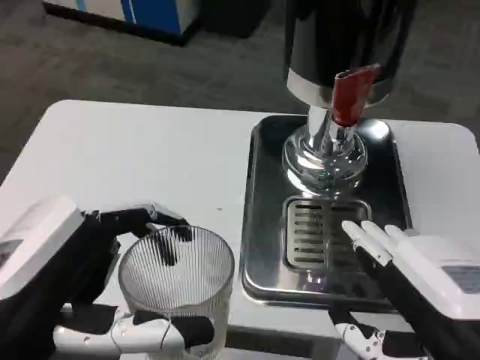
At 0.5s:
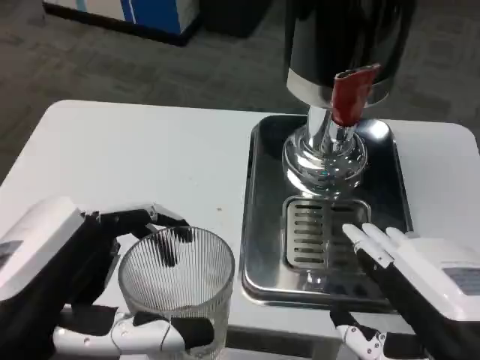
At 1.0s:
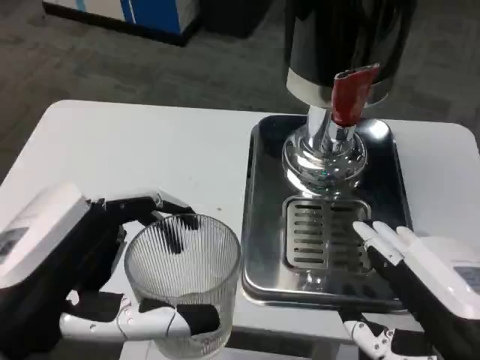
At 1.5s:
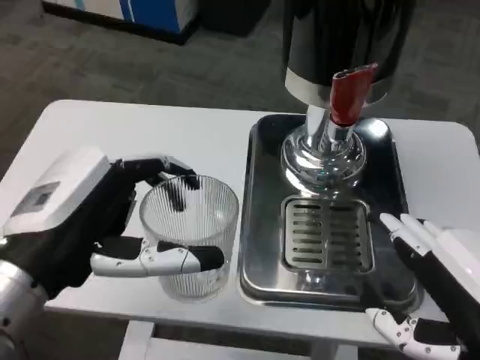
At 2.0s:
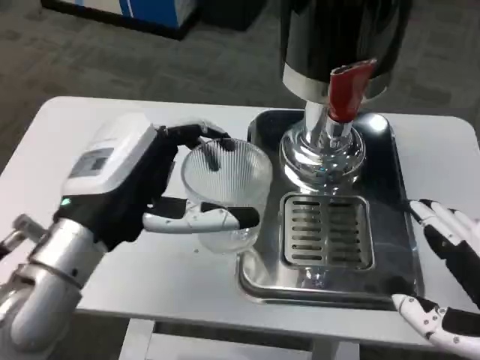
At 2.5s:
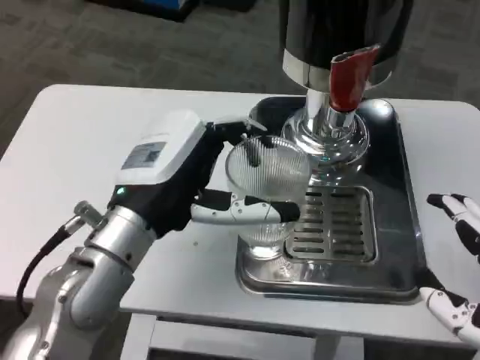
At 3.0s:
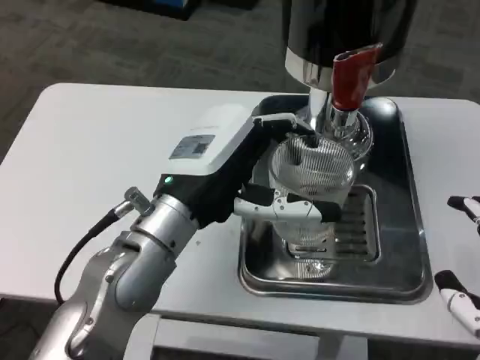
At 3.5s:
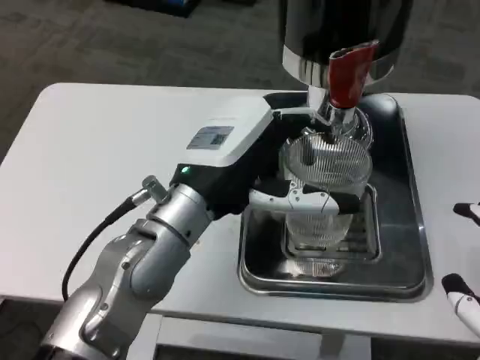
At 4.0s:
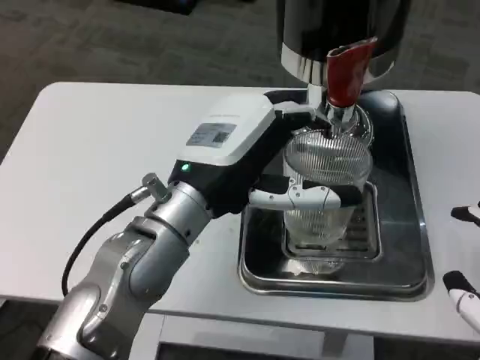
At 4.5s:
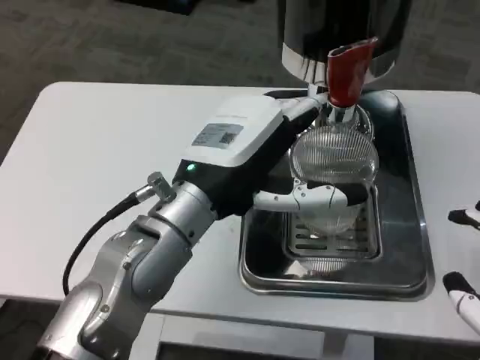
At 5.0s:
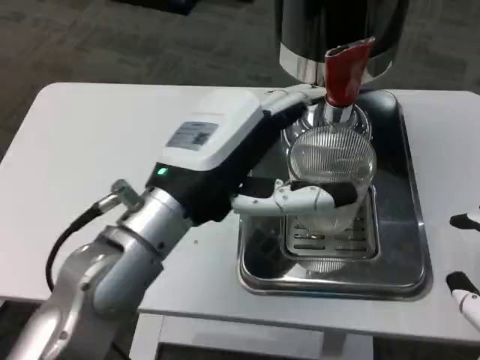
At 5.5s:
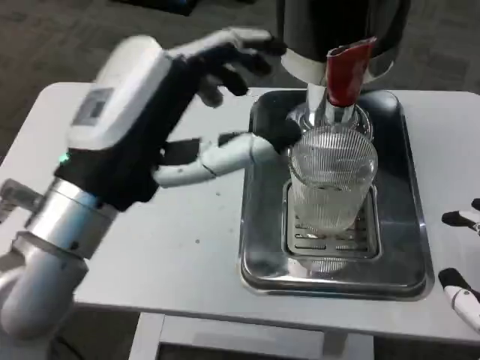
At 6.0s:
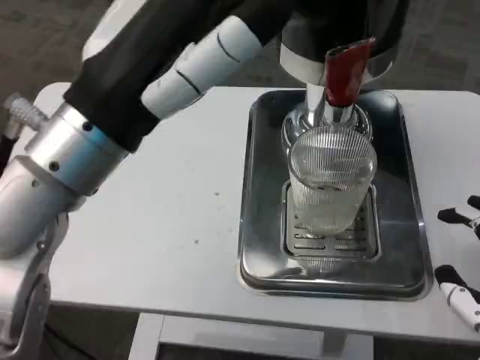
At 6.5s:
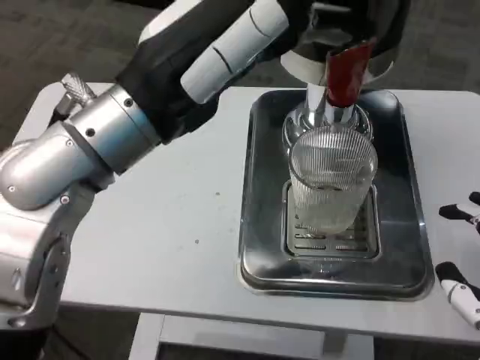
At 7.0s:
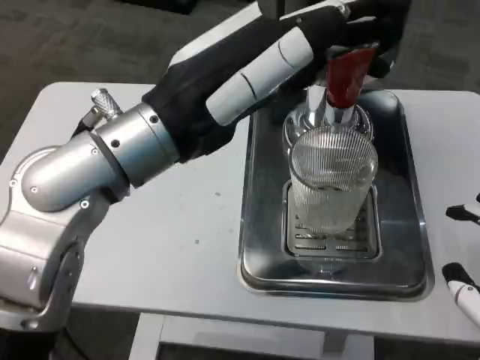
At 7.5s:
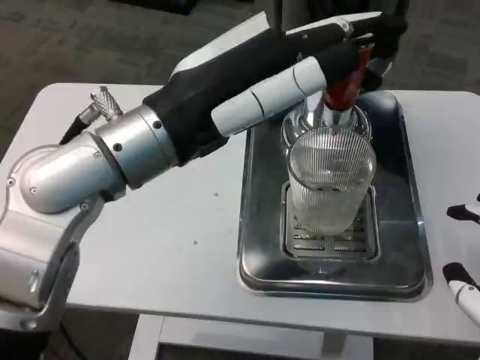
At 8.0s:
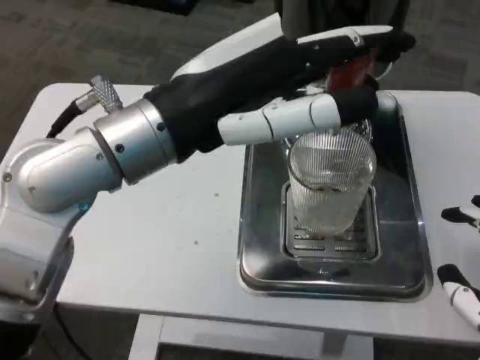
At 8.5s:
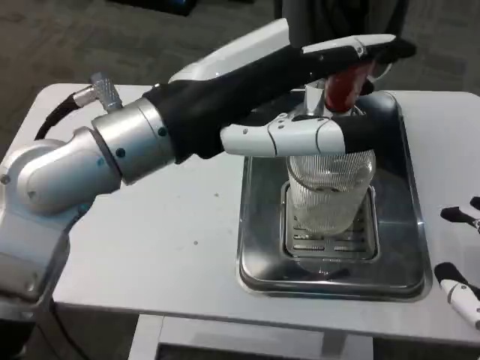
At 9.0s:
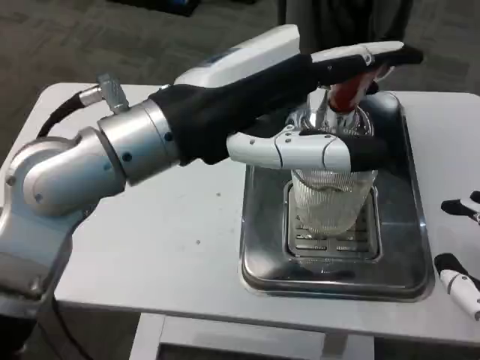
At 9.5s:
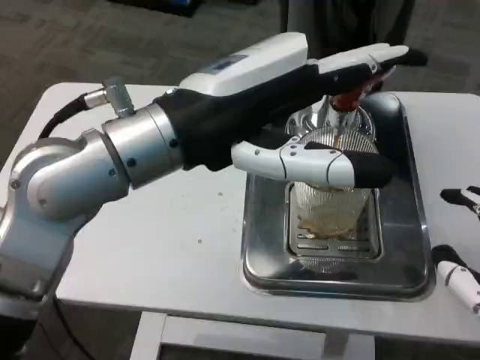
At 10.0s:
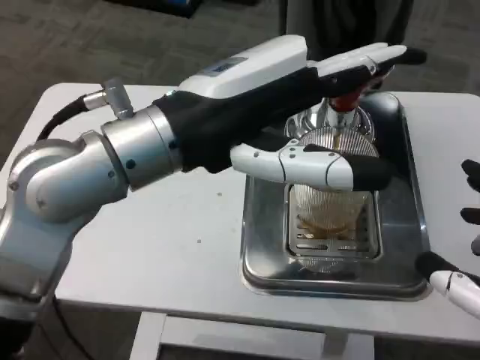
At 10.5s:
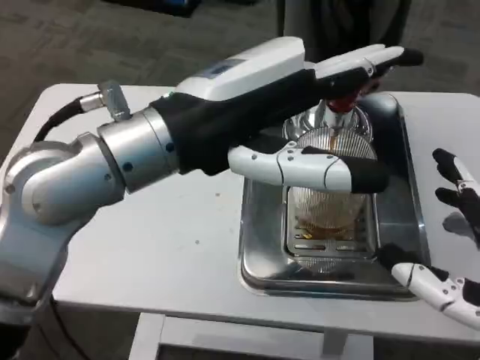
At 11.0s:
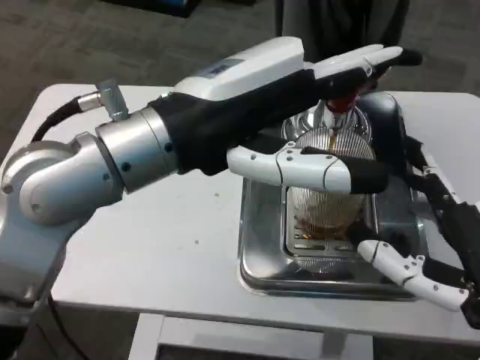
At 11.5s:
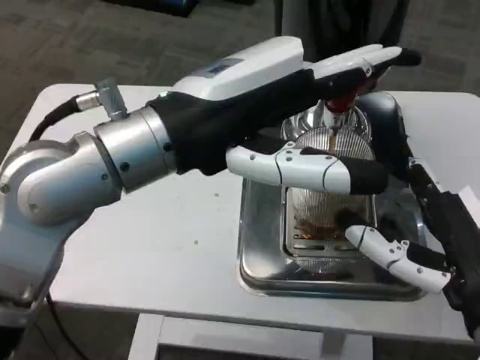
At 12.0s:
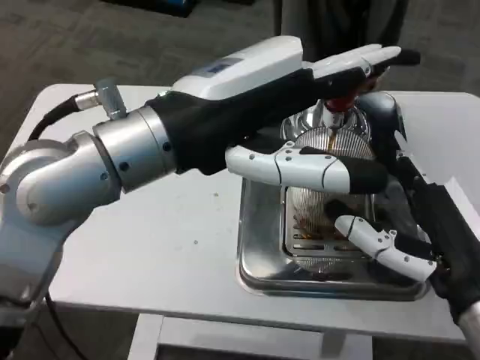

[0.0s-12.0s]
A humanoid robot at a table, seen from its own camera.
Task of the whole recording: Grasp the cup under the faucet to collect the drink, then remove the cup.
0.0s to 2.0s: The left hand moves forward, approximately 10 cm.
2.0s to 4.0s: The left hand shifts roughly 10 cm to the right.
4.0s to 6.0s: The left hand heads upward, backward and to the left, covering approximately 10 cm.
10.0s to 12.0s: The right hand goes roughly 10 cm forward and to the left.

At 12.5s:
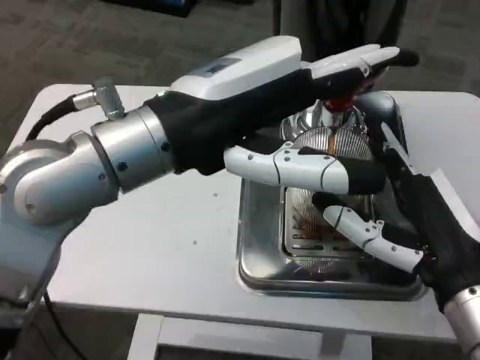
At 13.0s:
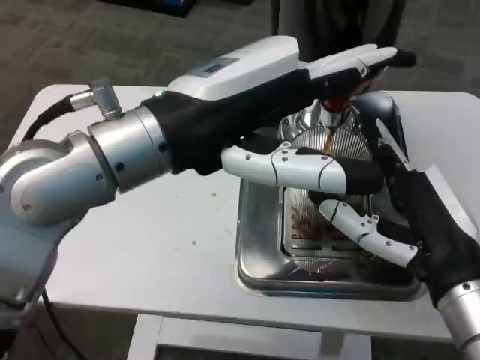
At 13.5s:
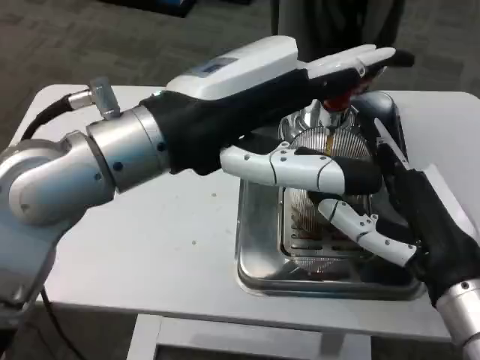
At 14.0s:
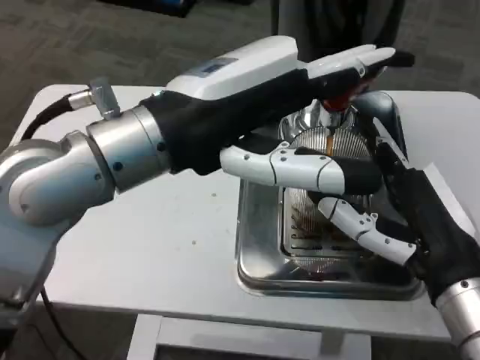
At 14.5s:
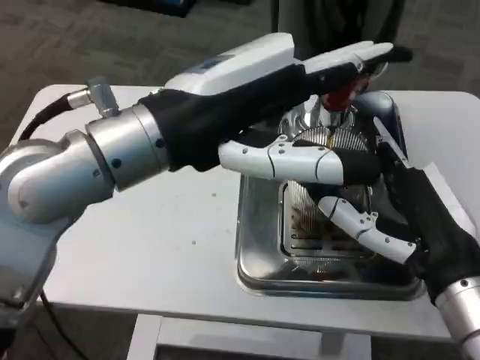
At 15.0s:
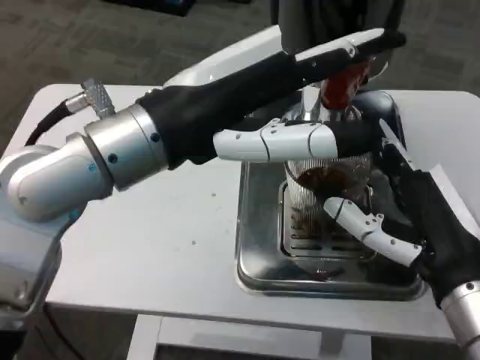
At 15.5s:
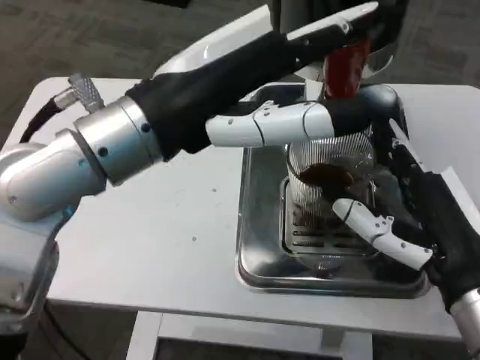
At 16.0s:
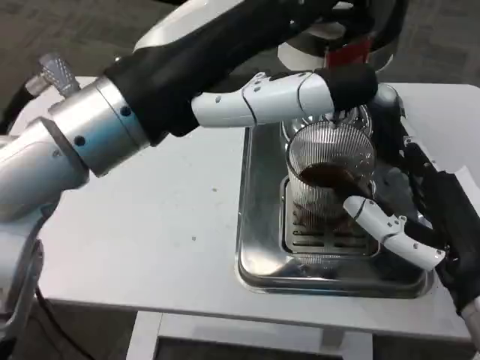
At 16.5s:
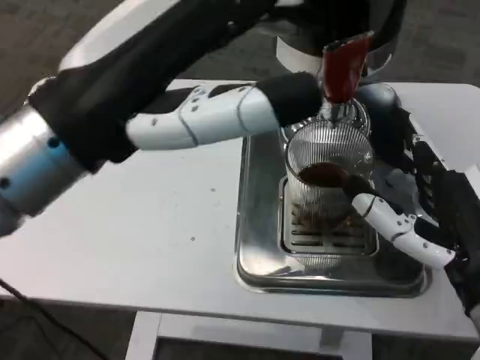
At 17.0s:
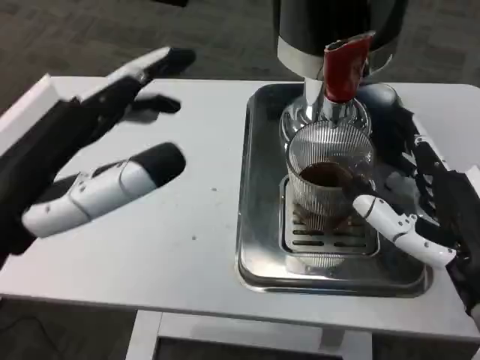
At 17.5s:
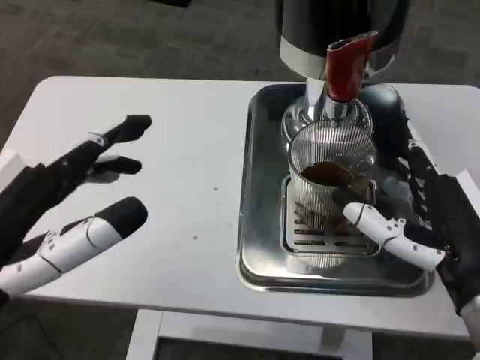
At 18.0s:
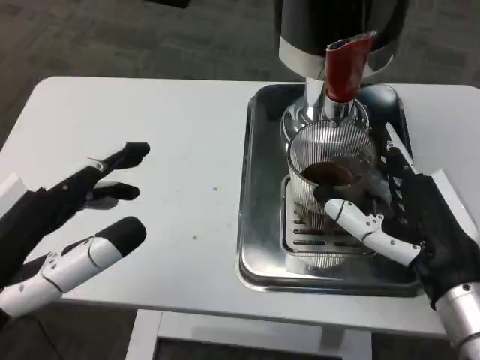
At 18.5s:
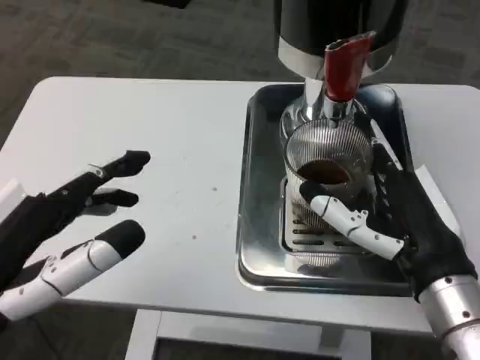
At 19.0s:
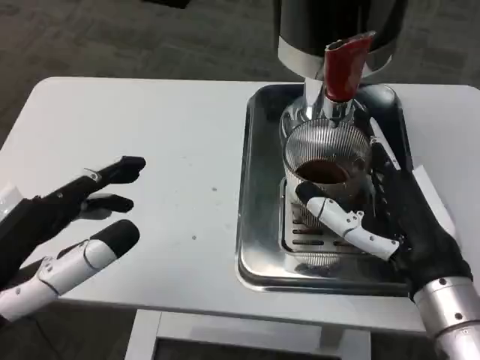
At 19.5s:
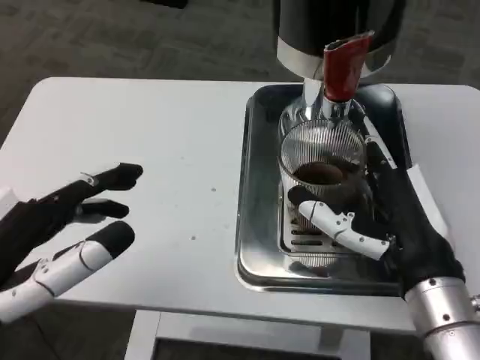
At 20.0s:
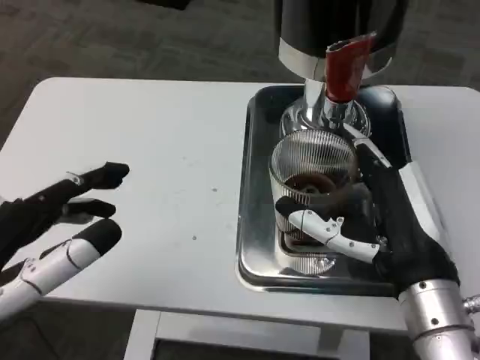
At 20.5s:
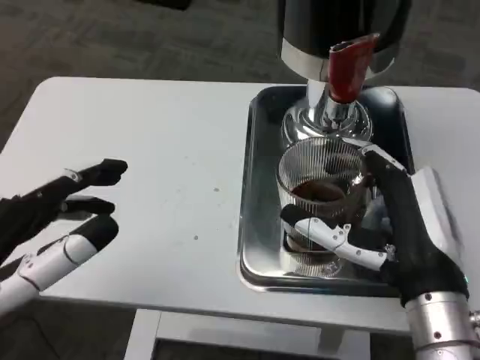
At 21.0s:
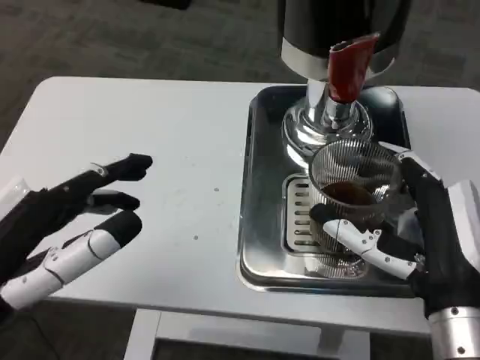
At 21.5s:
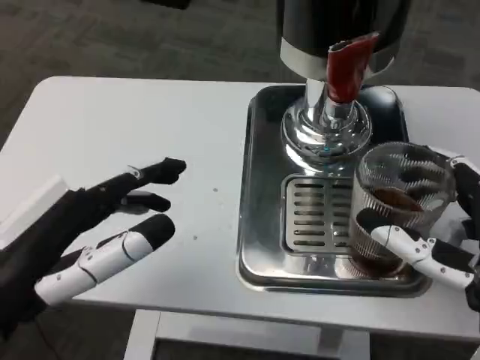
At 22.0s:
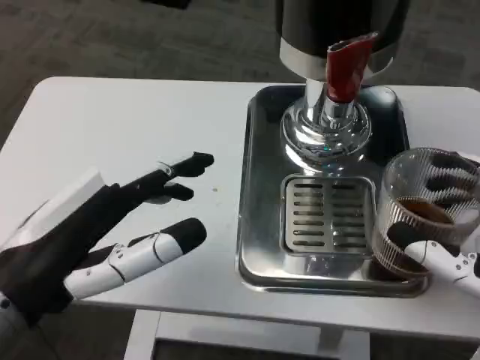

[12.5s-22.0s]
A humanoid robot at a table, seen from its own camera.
Task of the whole recording: Grasp the cup under the faucet to collect the drink, then remove the cup.
12.5s to 14.5s: Both hands stay put.
14.5s to 16.5s: The left hand goes some 5 cm backward.
16.5s to 18.0s: The left hand shifts approximately 15 cm downward, to the left and backward.
20.0s to 22.0s: The left hand changes place by some 5 cm; the right hand travels backward and to the right by roughly 10 cm.

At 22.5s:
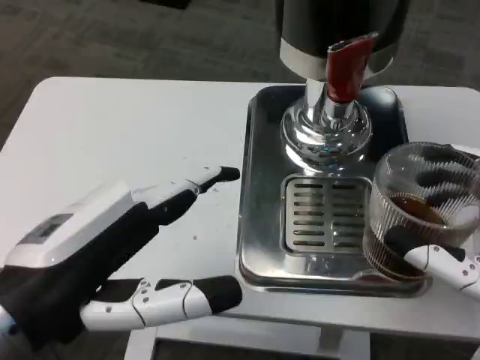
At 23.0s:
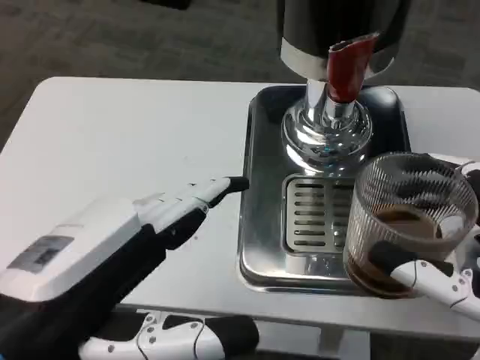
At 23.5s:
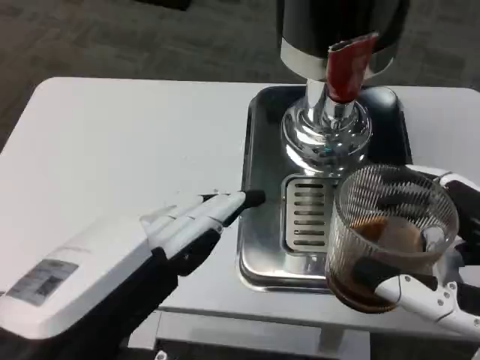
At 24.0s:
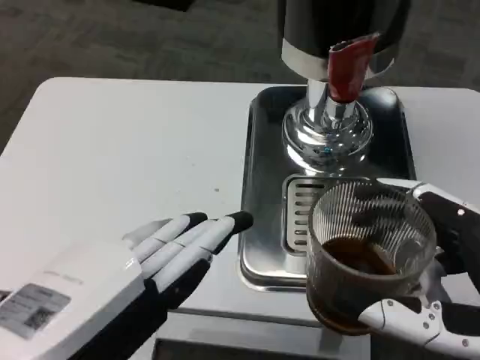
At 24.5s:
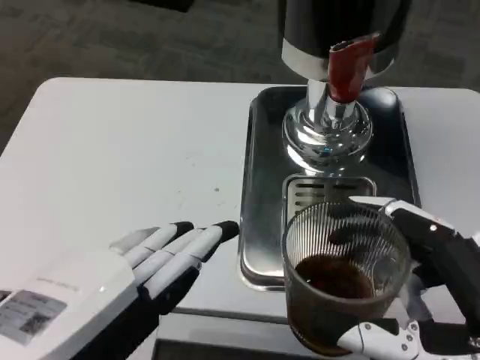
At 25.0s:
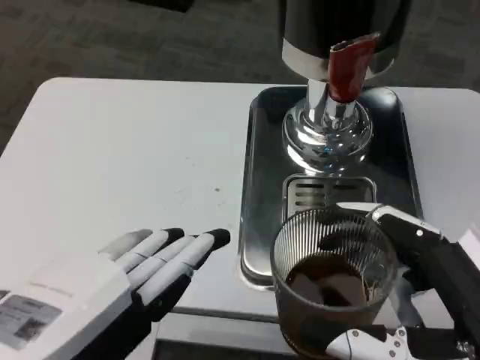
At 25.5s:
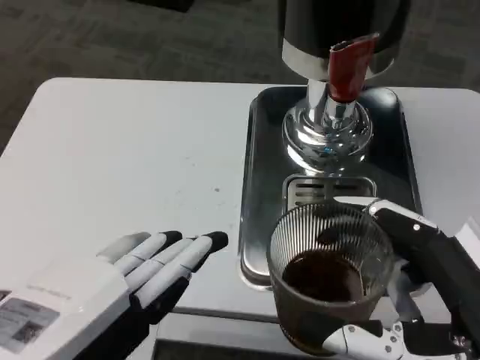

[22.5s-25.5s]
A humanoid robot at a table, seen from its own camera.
Task of the whole recording: Grasp the cup under the faucet to collect the drink, then remove the cup.
22.5s to 24.0s: The left hand travels backward by approximately 5 cm.

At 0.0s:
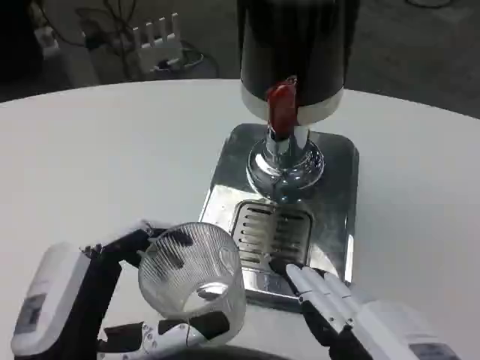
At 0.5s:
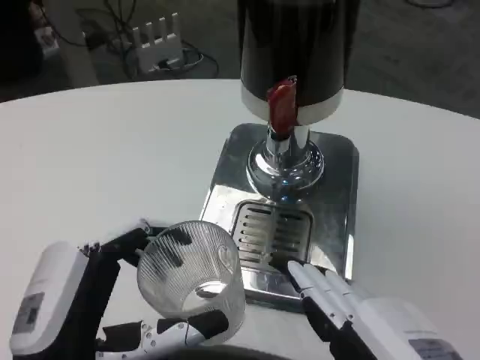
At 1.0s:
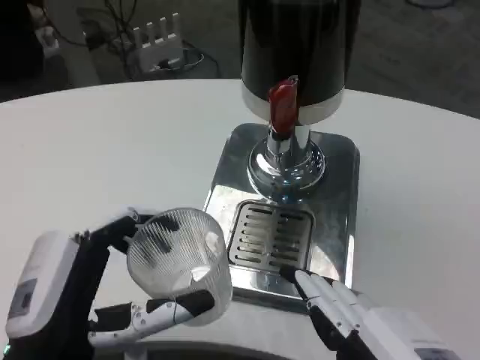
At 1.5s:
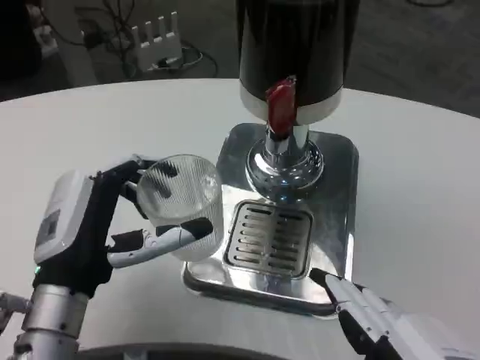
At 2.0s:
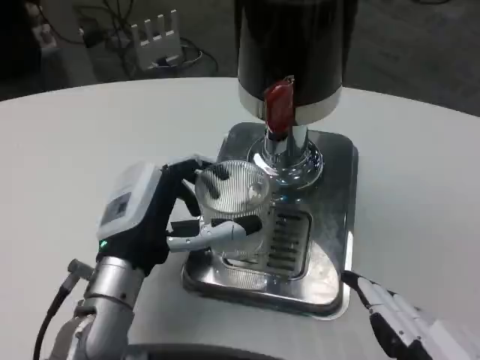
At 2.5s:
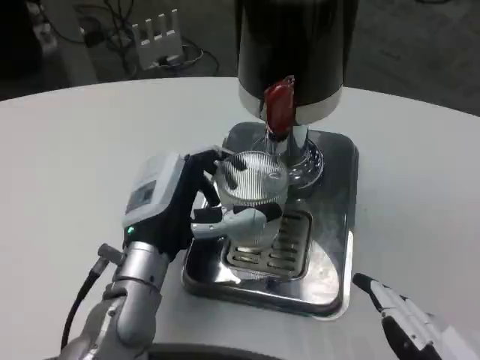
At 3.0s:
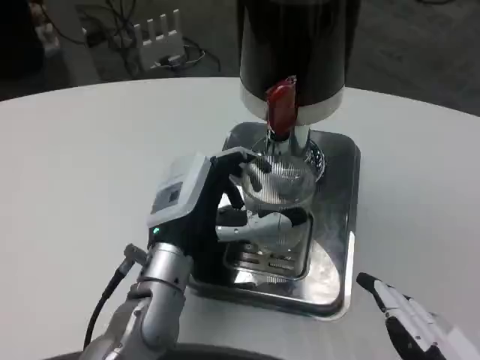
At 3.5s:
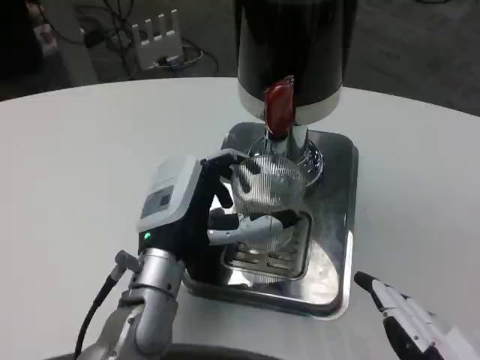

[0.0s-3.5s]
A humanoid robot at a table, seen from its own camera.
Task of the whole recording: Grasp the cup under the faucet to collect the drink, then remove the cup.
0.0s to 2.0s: The left hand moves forward, some 15 cm.
2.0s to 3.5s: There are only small adjustments of the hands.
